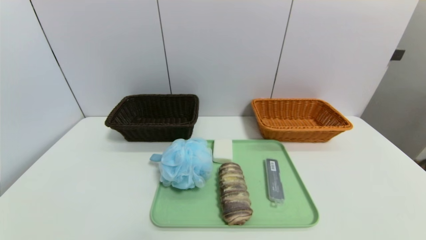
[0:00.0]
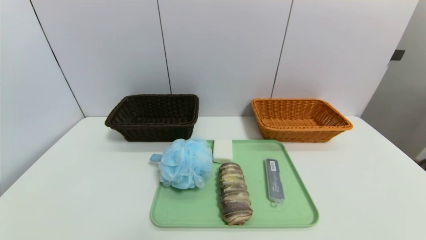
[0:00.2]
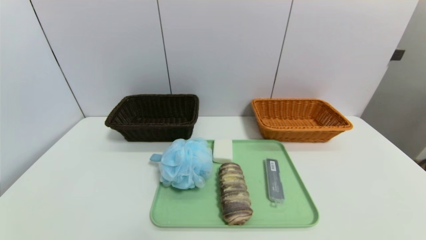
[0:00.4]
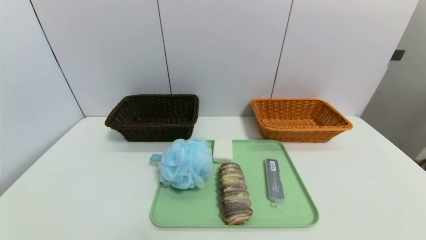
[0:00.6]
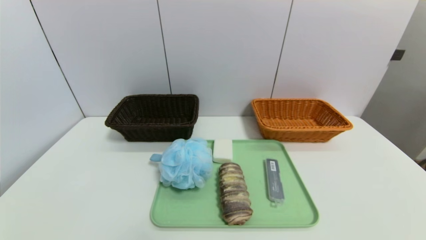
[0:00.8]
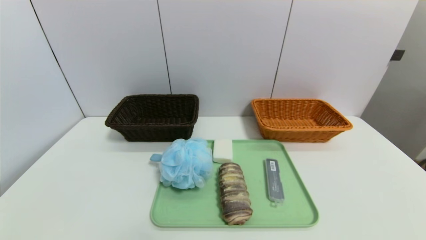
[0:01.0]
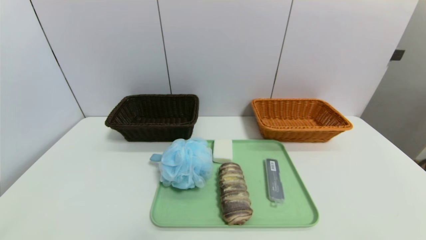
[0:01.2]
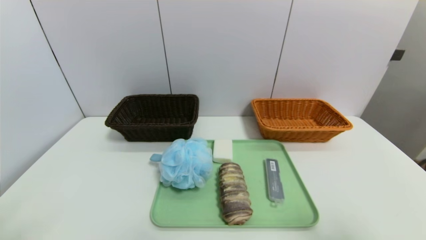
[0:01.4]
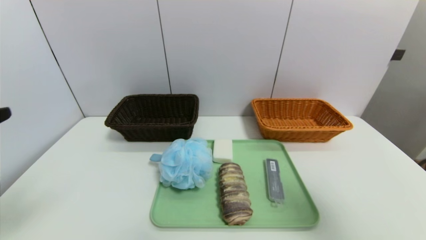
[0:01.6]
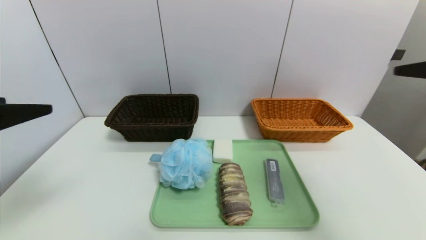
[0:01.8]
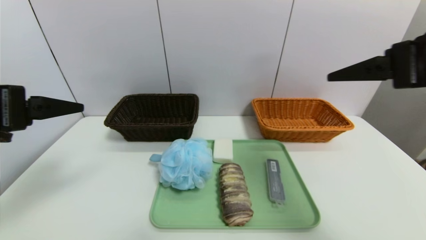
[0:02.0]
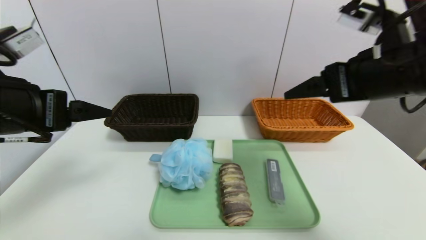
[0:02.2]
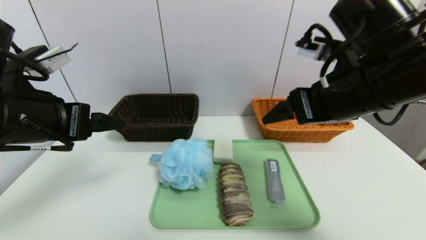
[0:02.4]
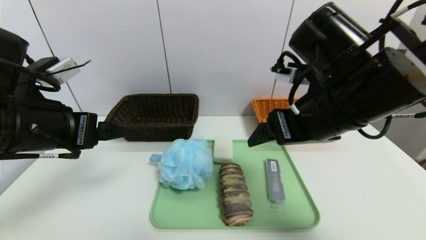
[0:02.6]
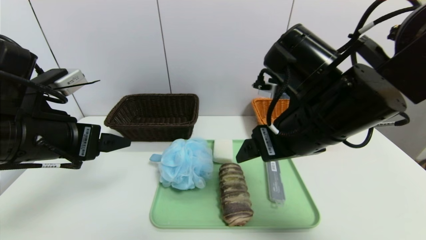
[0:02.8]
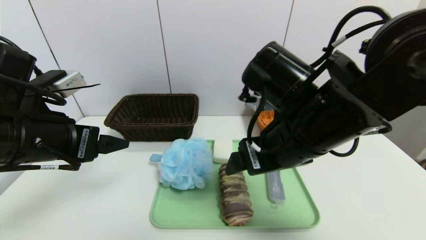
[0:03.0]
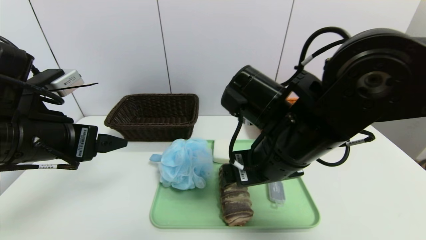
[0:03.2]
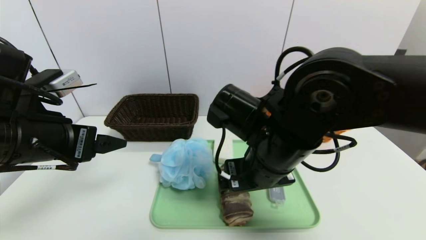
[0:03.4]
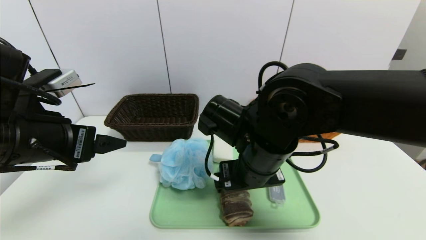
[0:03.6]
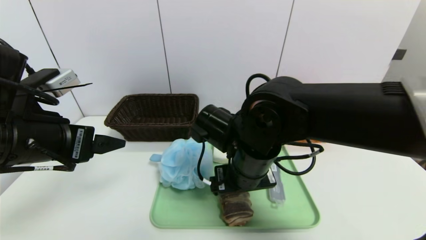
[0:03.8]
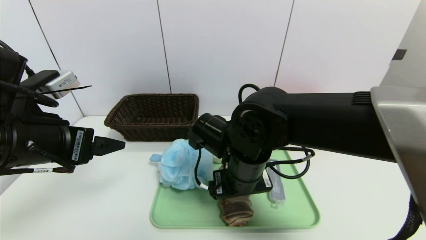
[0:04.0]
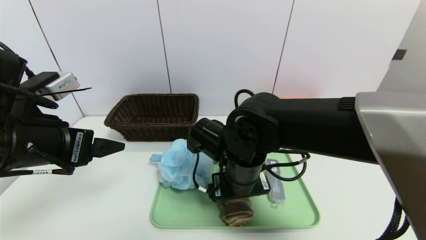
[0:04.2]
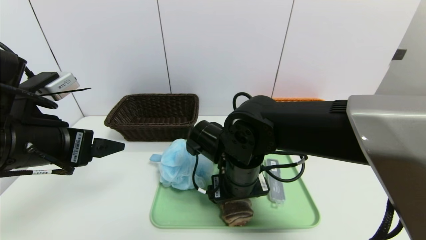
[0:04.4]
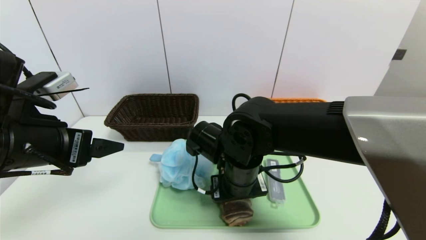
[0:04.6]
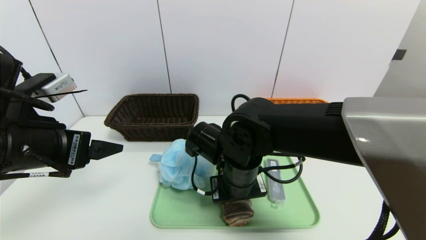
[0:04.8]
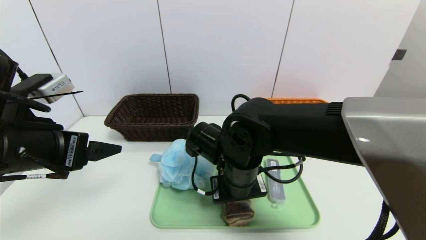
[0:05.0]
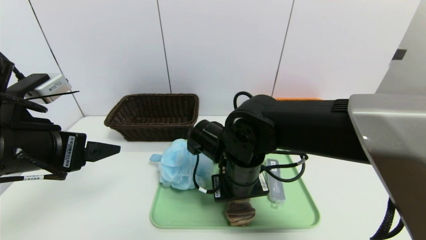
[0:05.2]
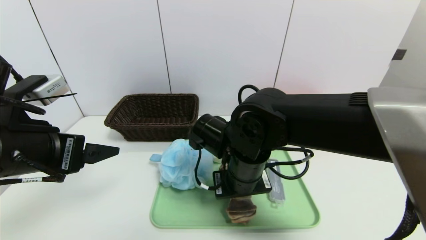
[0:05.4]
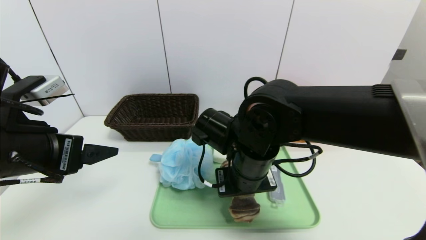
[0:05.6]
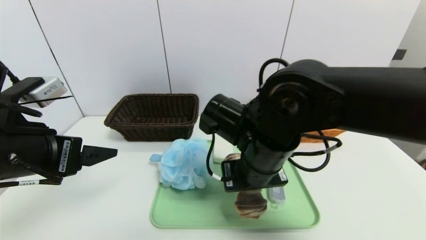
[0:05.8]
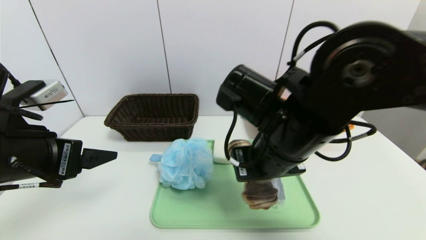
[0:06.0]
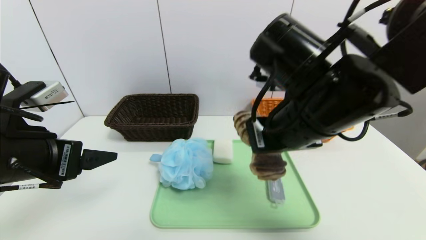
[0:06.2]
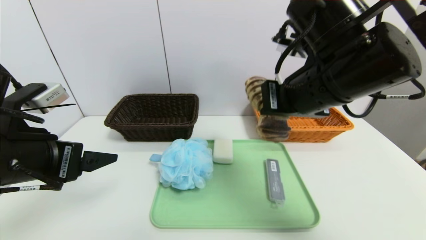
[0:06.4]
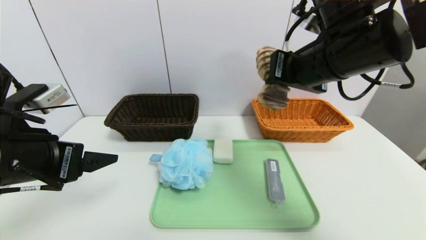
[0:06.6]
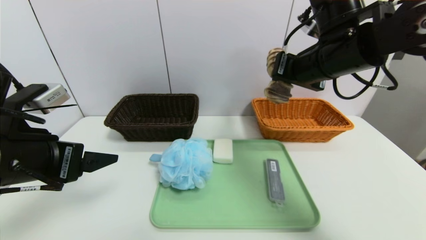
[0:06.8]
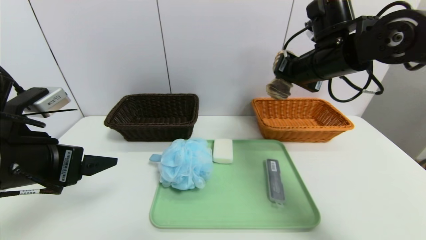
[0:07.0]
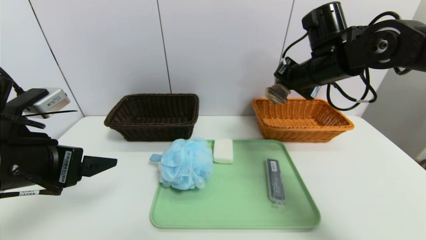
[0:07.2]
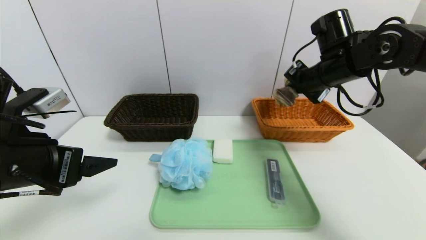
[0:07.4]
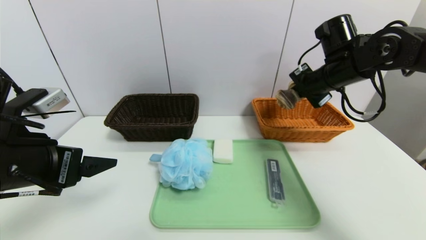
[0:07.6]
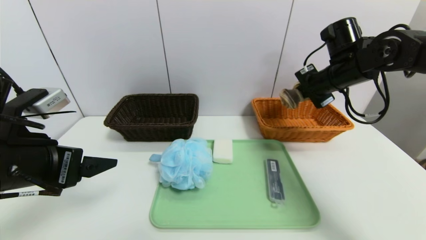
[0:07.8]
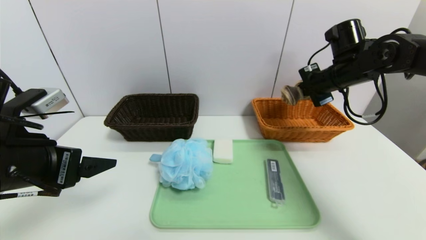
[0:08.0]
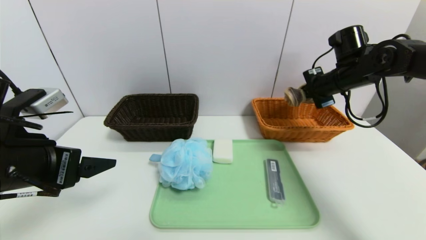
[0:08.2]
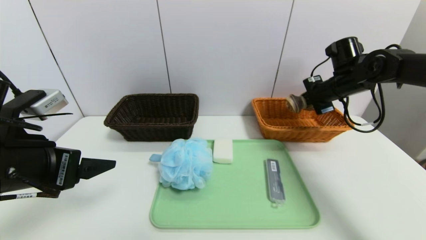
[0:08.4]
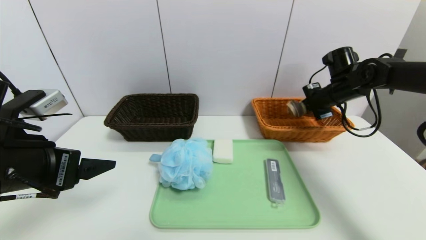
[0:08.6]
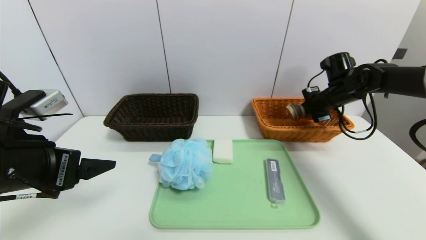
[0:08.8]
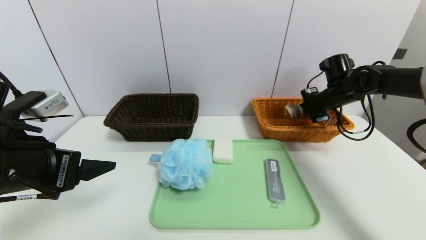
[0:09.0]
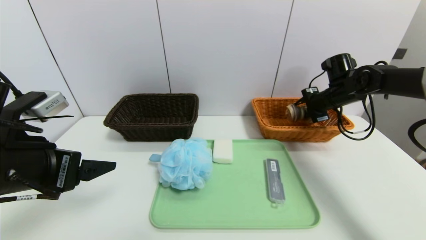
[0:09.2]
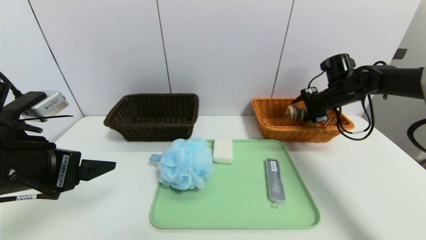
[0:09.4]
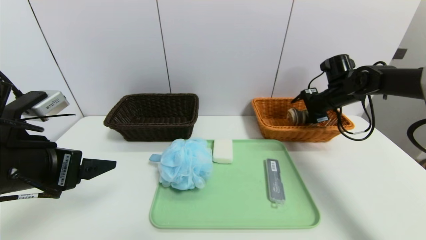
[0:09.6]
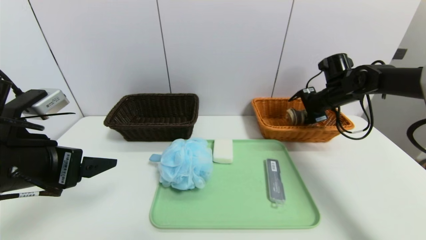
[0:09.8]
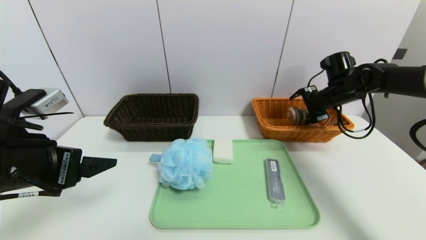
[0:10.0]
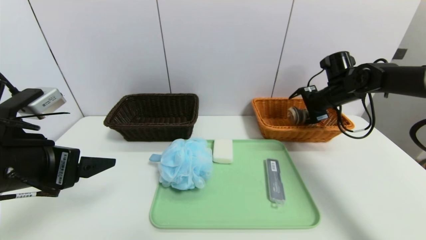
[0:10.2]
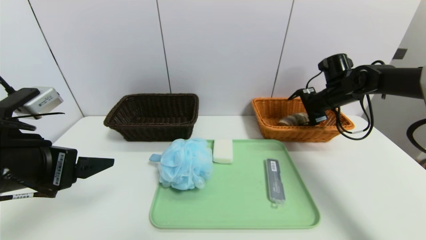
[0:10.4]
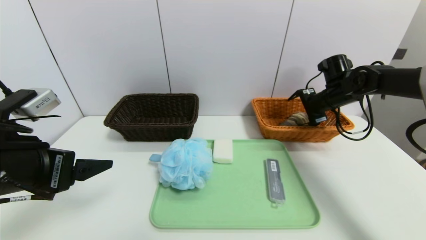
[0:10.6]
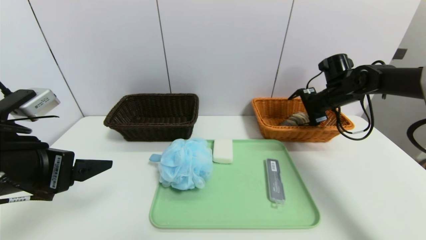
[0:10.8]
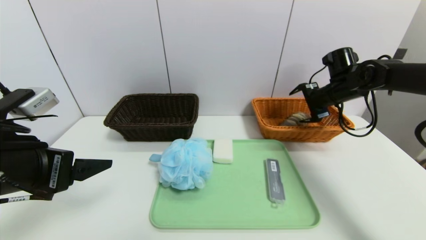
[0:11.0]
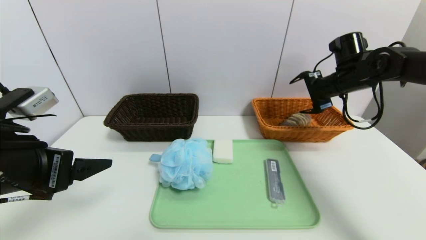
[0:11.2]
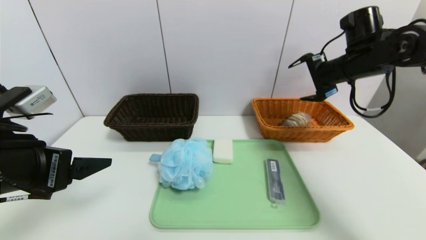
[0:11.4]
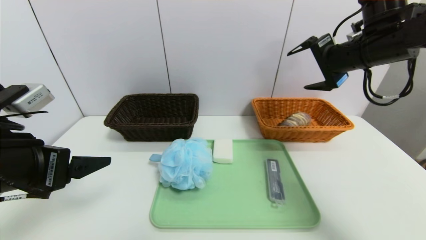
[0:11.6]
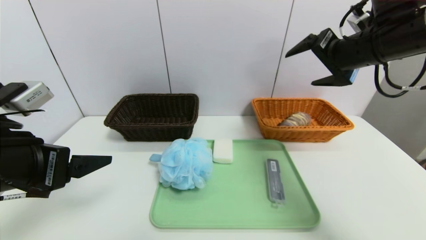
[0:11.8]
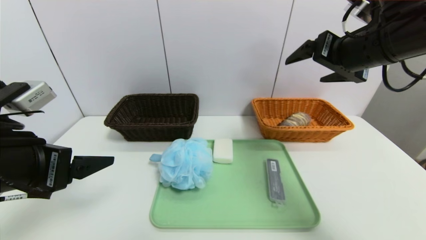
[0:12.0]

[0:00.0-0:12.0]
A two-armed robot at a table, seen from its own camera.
Task of the whole recording: place the food in the right basket with the right gripper, and place the non food items in the left basket with the left gripper.
Step, 0:00.0 to 0:11.0: Grasp the long bread and put it in the right basket.
0:00.0 to 0:01.6: Both grippers travel together upward, approximately 25 cm.
0:01.6 to 0:03.0: The right gripper is displaced to the left and forward by some 25 cm, while the left gripper moves forward, to the right and downward, some 15 cm.
0:03.0 to 0:04.4: The right gripper heads downward and to the left, covering about 15 cm.
0:04.4 to 0:06.0: The right gripper travels upward by approximately 10 cm, and closes its fingers.
0:06.0 to 0:07.6: The right gripper is displaced forward and to the right by some 25 cm.
0:07.6 to 0:09.0: The right gripper goes approximately 15 cm downward, to the right and forward.
0:09.0 to 0:10.4: The right gripper opens up.
0:10.4 to 0:12.0: The right gripper heads backward, upward and to the left, covering some 25 cm.

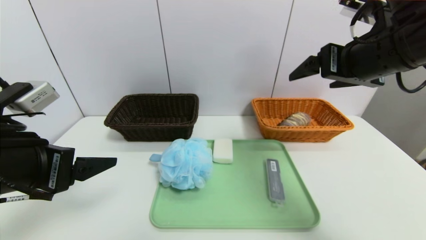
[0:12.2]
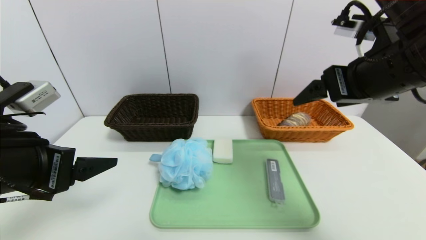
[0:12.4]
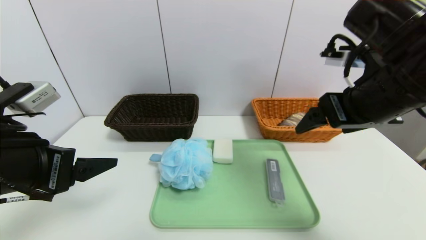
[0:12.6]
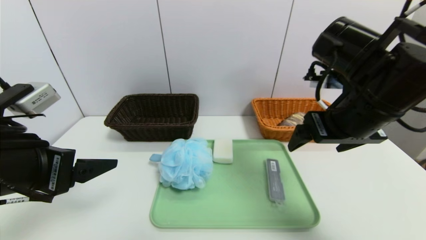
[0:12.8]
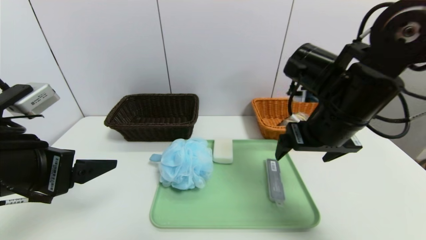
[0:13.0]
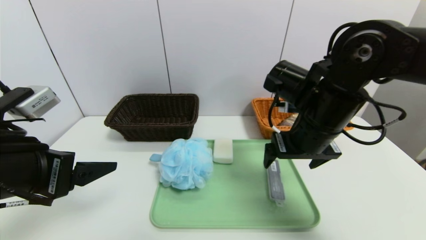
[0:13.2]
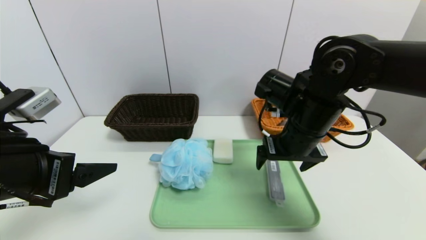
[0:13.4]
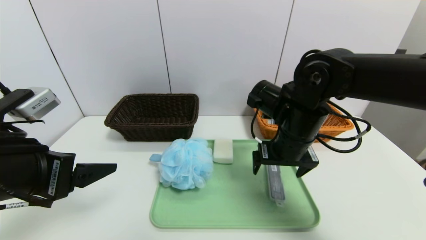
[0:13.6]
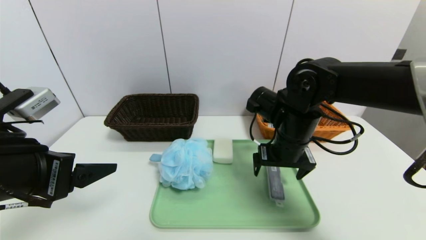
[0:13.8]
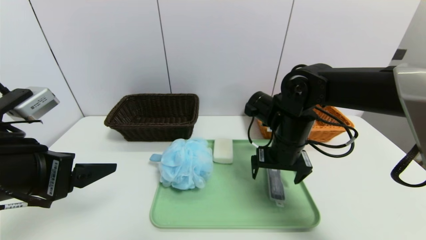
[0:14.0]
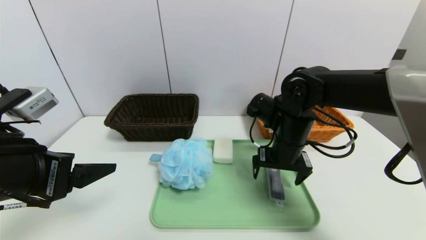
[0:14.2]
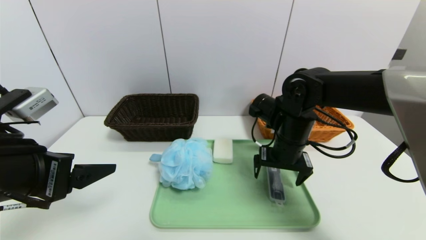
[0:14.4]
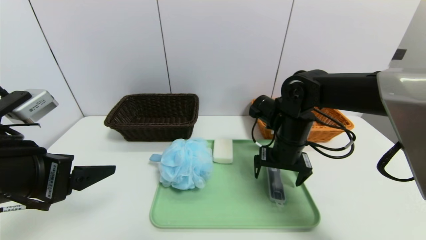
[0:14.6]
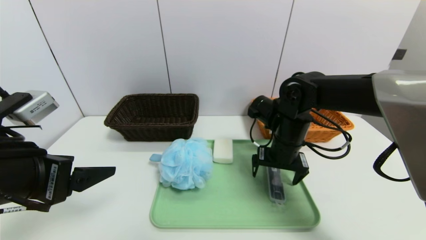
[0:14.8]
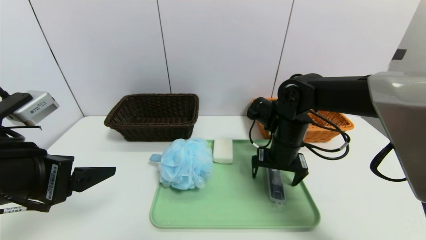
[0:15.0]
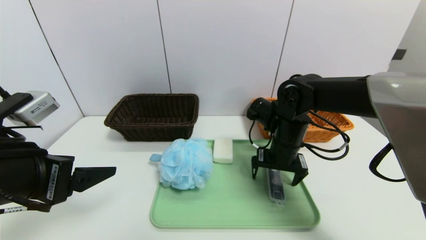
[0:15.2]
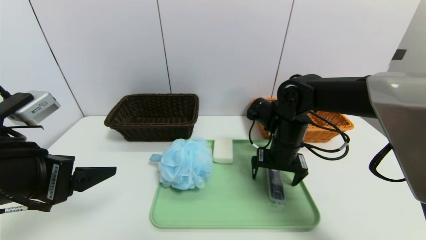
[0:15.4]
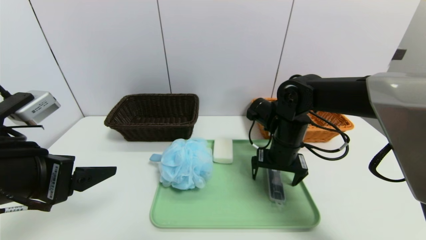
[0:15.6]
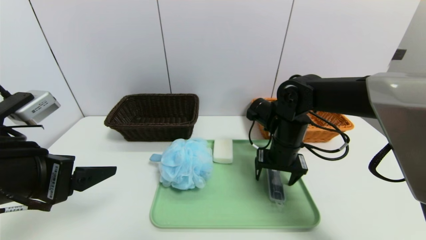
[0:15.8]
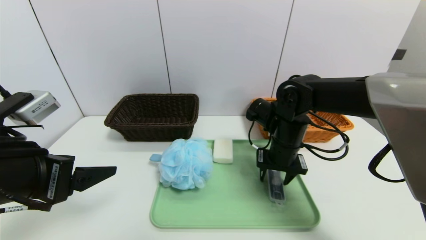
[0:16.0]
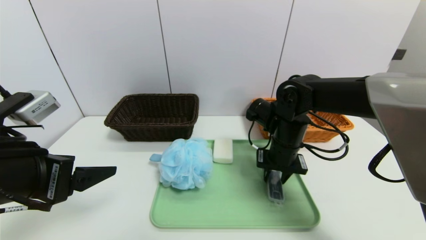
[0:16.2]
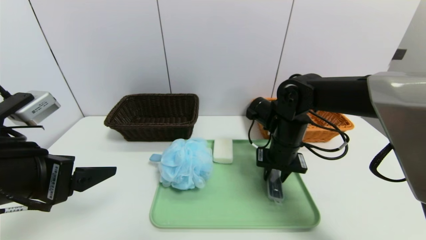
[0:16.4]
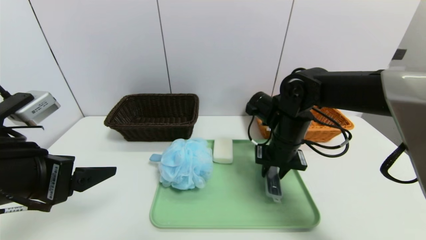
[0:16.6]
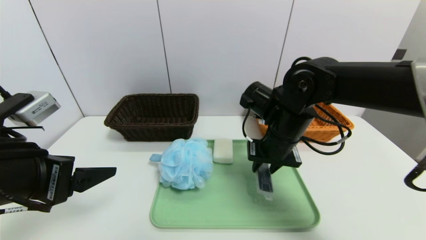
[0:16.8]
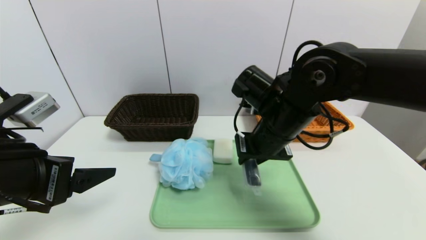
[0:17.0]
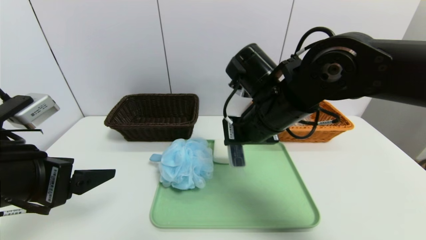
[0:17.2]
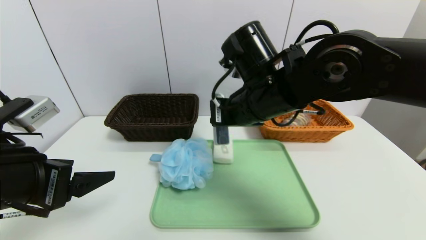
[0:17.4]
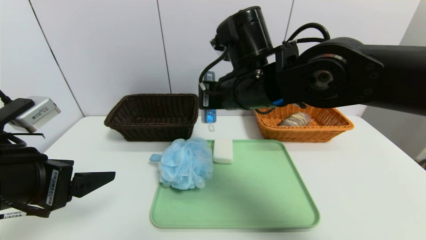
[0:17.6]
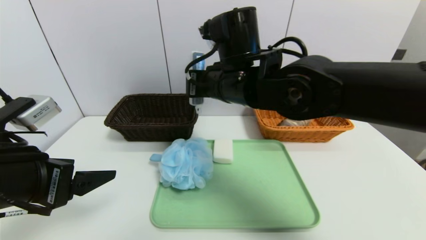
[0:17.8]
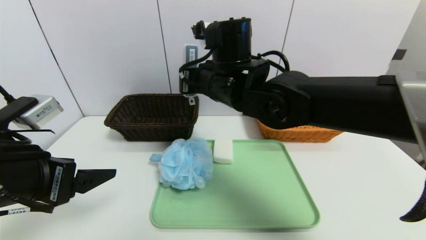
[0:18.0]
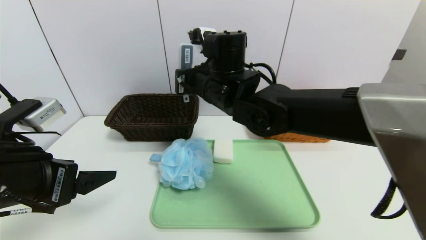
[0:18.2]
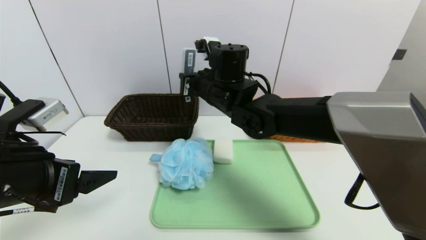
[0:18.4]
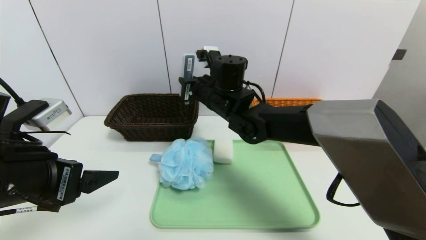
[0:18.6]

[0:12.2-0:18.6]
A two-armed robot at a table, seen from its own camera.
Task of the whole recording: place the food in the right basket with the right gripper, and place the non food items in the left basket with the left gripper.
0:12.2 to 0:13.8: The right gripper moves downward and to the left, approximately 20 cm.
0:13.8 to 0:15.4: The grippers move only a little.
0:15.4 to 0:17.0: The right gripper heads upward and backward, covering about 10 cm, and closes its fingers.
0:17.0 to 0:18.6: The right gripper heads forward and to the left, covering some 15 cm.
